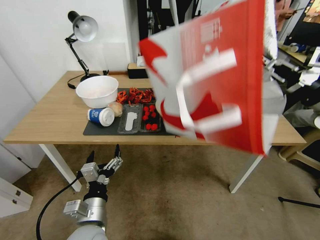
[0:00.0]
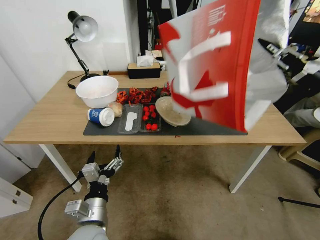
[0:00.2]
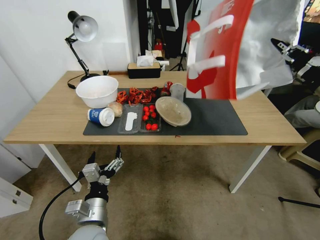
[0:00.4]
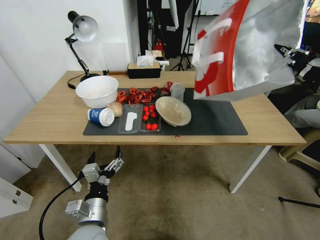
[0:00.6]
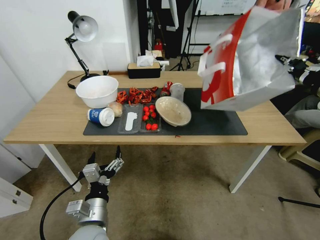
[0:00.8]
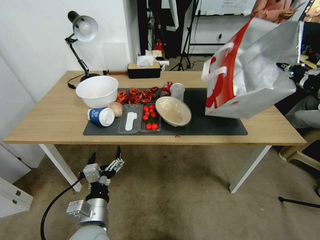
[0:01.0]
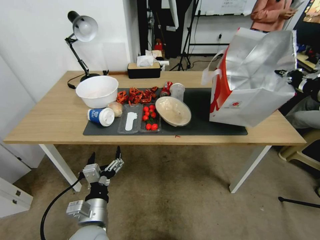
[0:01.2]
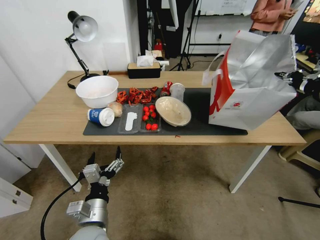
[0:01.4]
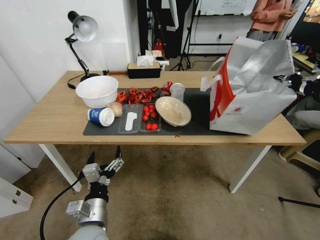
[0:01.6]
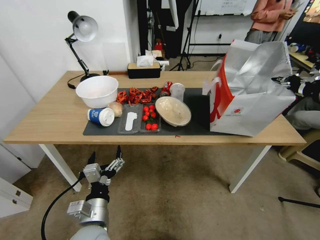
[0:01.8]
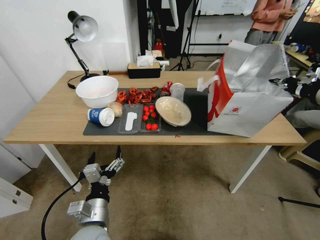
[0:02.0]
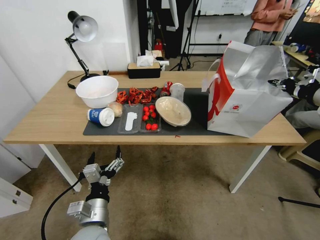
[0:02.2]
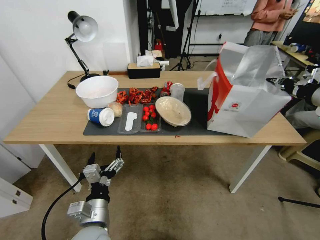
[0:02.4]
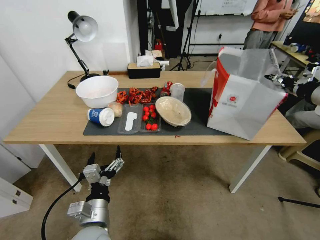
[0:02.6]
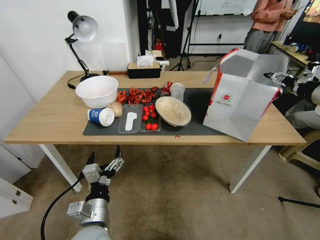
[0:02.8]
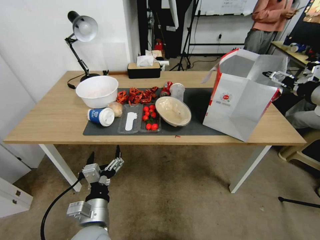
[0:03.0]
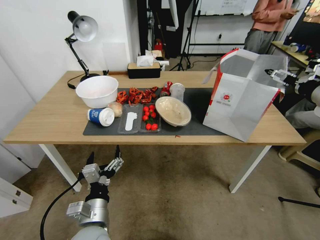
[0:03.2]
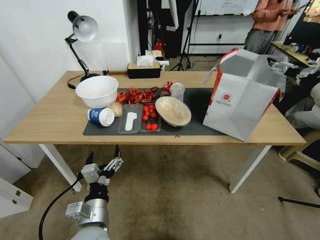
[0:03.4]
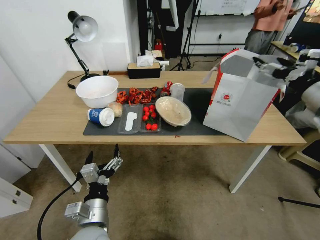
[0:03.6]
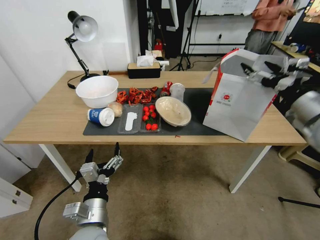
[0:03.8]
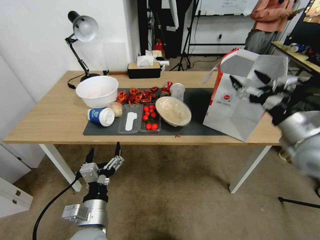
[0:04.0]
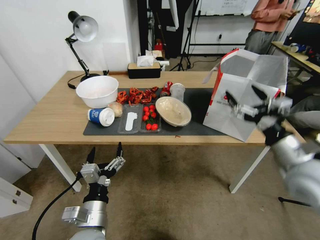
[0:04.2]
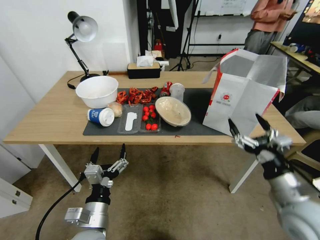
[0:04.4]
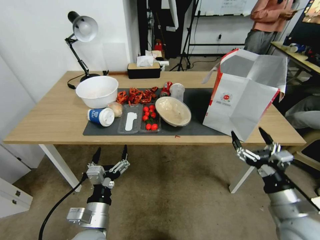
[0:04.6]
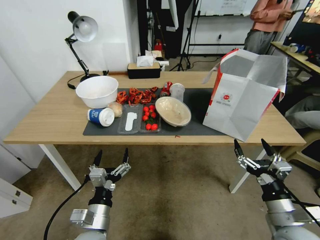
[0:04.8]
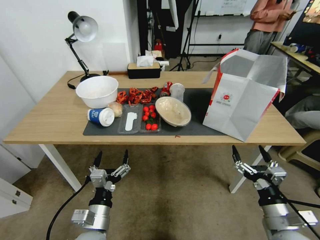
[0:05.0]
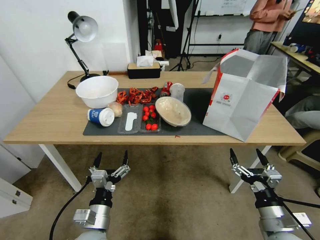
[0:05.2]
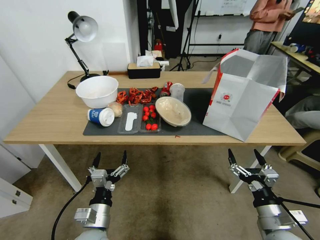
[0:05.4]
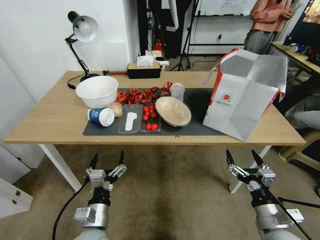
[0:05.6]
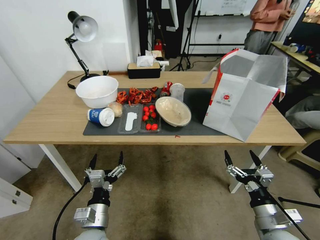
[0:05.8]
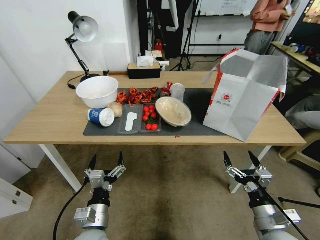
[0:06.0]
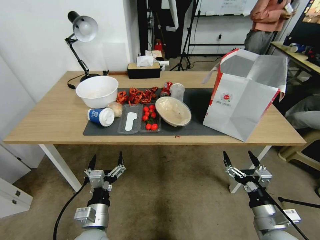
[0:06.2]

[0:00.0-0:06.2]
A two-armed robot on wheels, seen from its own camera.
Task of the whole recording: Pick up the food delivery bag from the floor and place it on the table.
0:01.6 to 0:03.2: The right gripper opens.
0:03.2 to 0:04.6: The right gripper shifts about 35 cm downward, backward and to the left.
0:04.6 to 0:06.2: The right gripper is displaced downward by approximately 5 cm.
